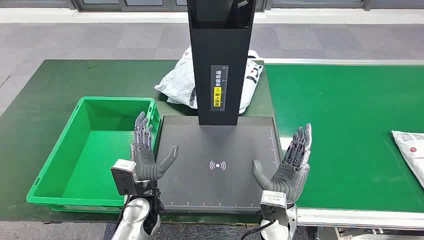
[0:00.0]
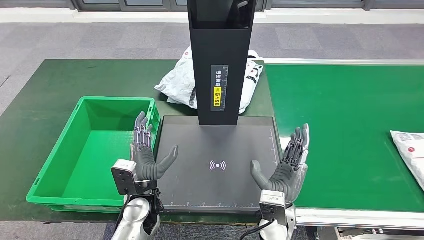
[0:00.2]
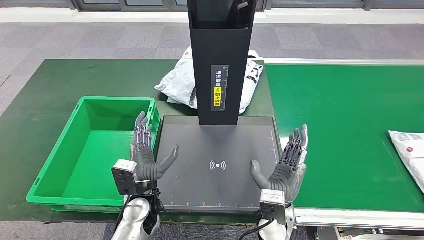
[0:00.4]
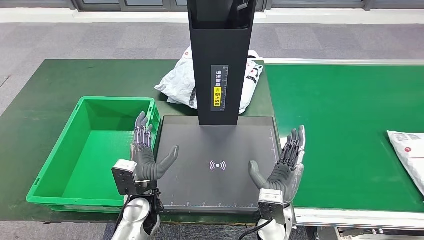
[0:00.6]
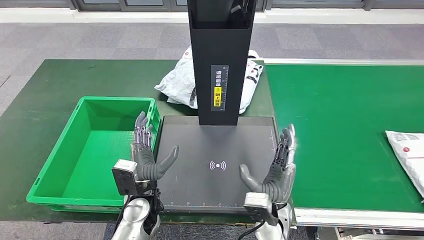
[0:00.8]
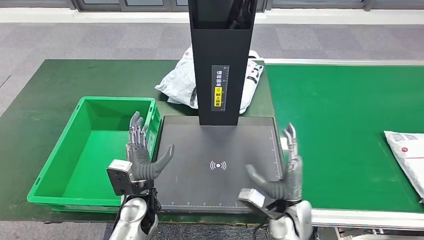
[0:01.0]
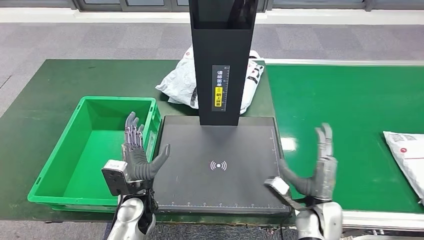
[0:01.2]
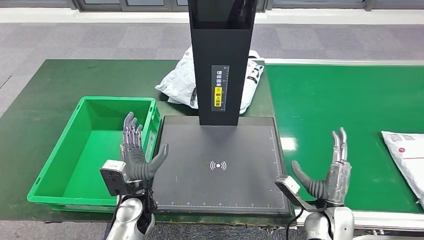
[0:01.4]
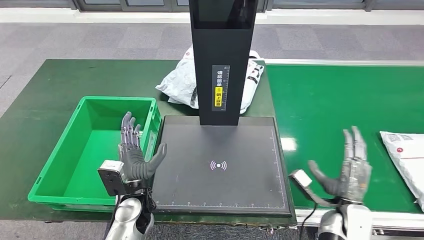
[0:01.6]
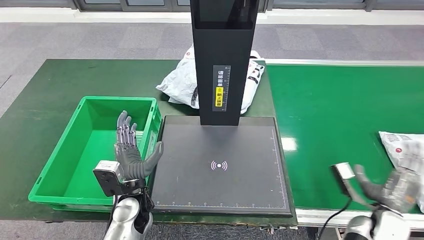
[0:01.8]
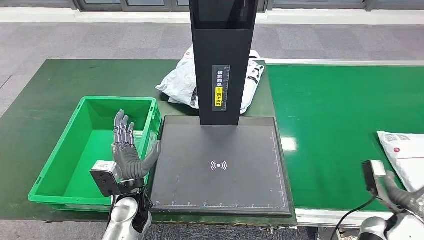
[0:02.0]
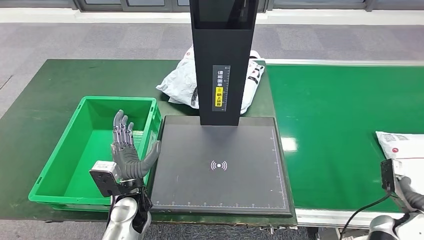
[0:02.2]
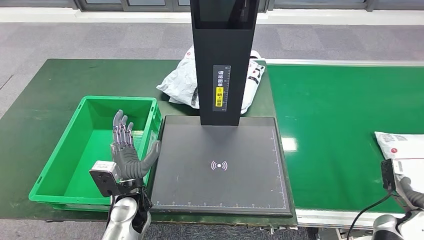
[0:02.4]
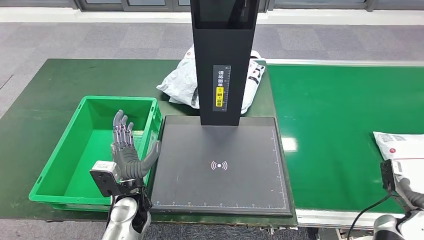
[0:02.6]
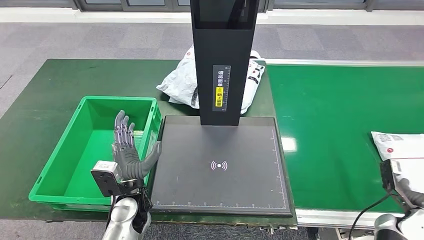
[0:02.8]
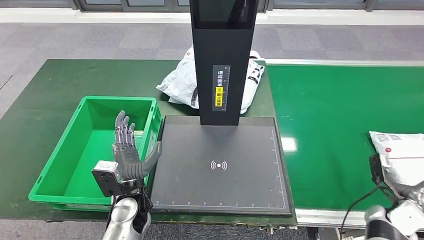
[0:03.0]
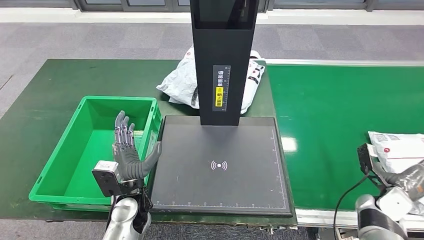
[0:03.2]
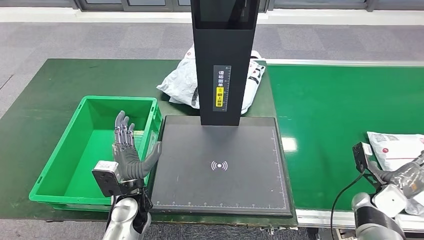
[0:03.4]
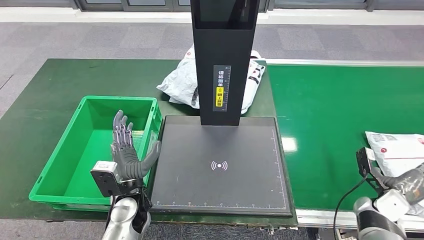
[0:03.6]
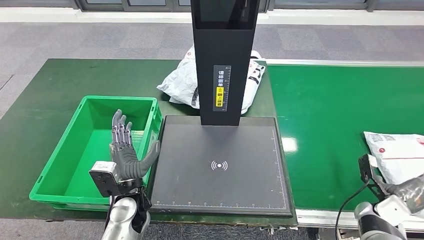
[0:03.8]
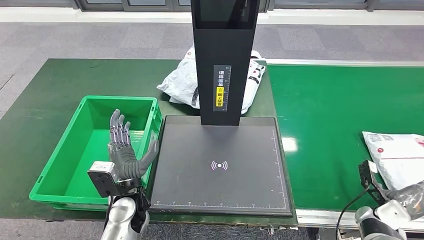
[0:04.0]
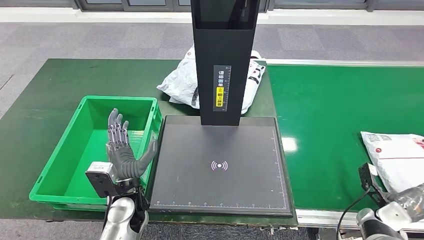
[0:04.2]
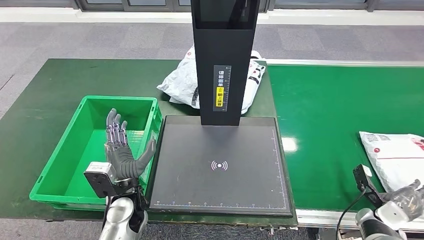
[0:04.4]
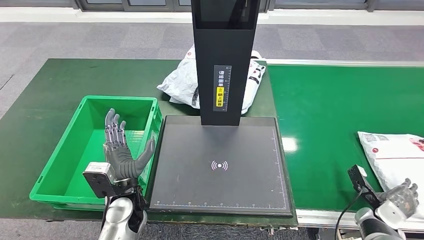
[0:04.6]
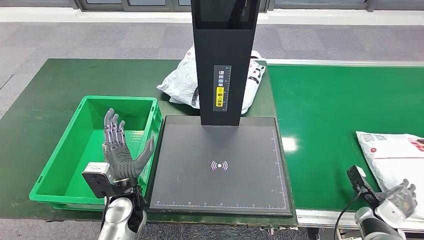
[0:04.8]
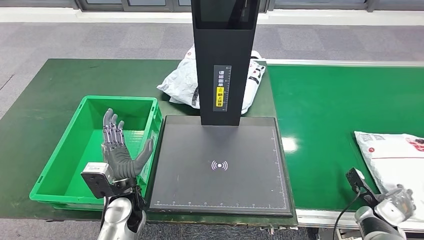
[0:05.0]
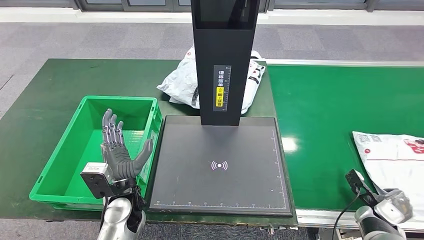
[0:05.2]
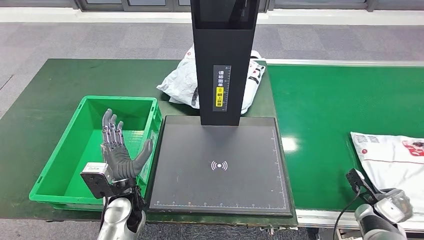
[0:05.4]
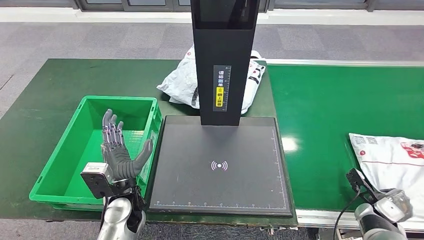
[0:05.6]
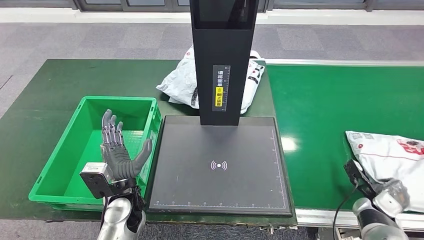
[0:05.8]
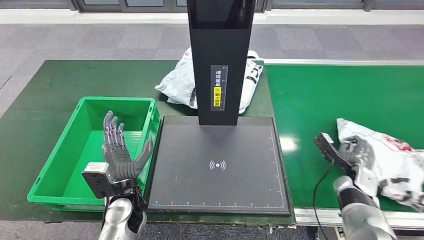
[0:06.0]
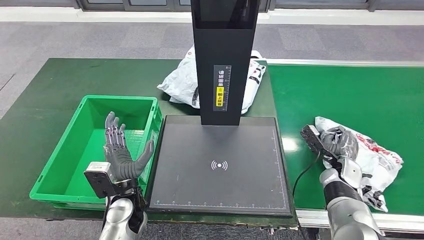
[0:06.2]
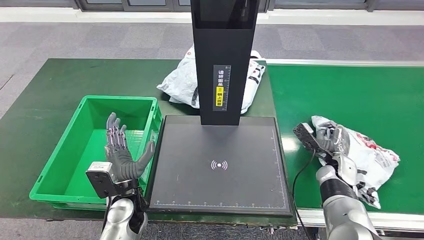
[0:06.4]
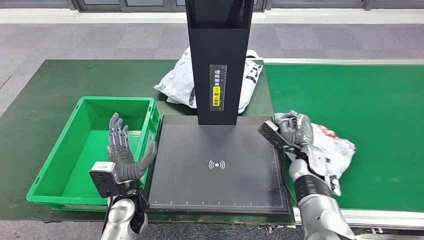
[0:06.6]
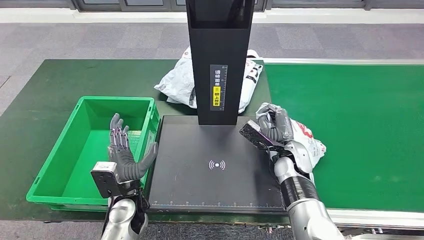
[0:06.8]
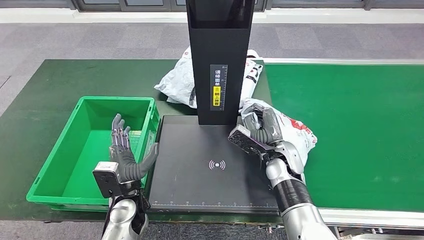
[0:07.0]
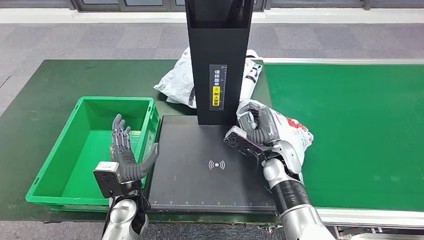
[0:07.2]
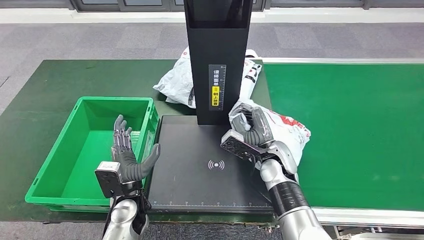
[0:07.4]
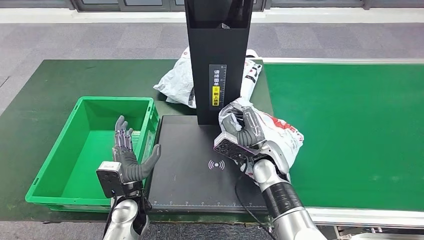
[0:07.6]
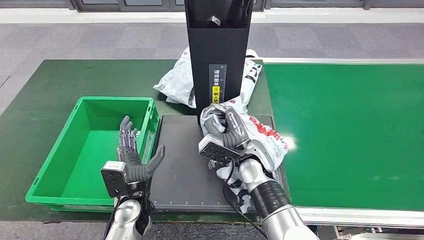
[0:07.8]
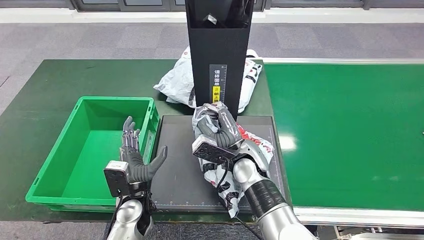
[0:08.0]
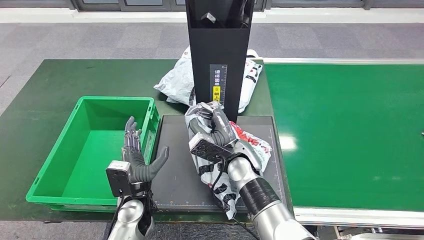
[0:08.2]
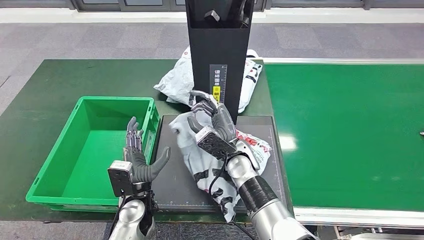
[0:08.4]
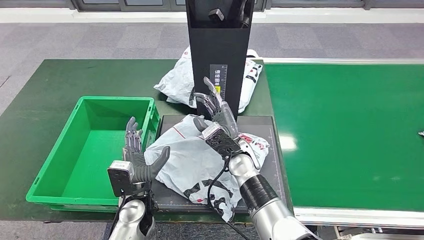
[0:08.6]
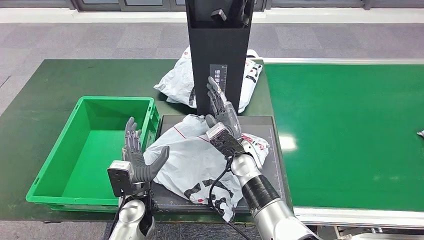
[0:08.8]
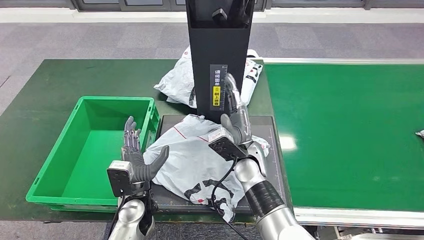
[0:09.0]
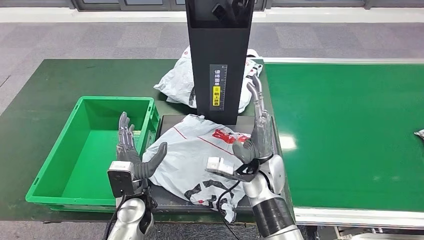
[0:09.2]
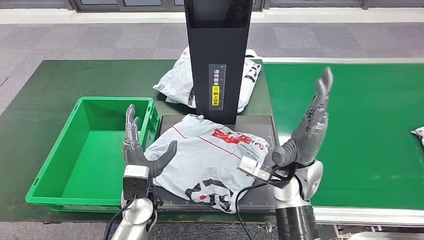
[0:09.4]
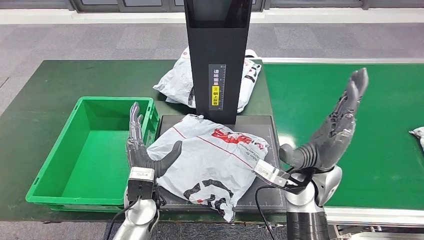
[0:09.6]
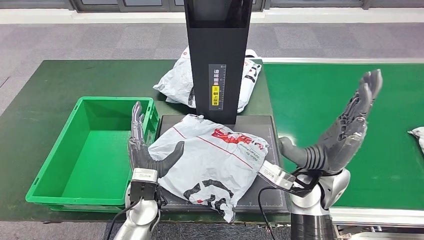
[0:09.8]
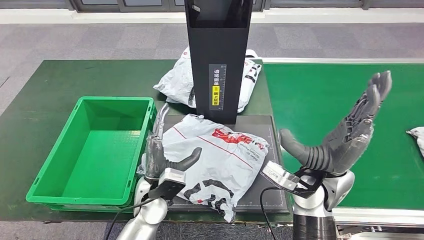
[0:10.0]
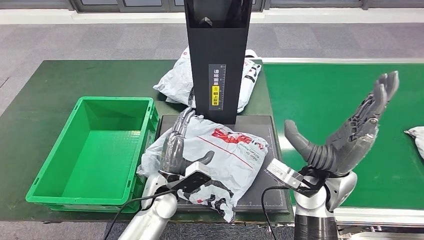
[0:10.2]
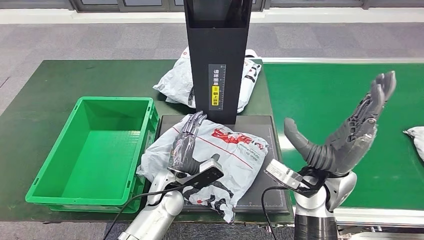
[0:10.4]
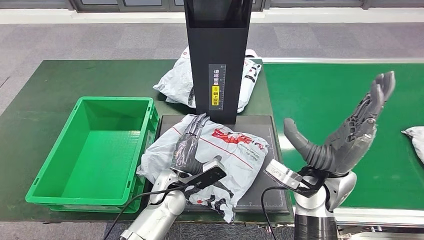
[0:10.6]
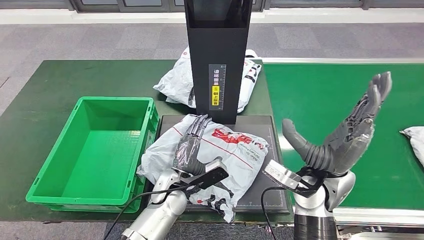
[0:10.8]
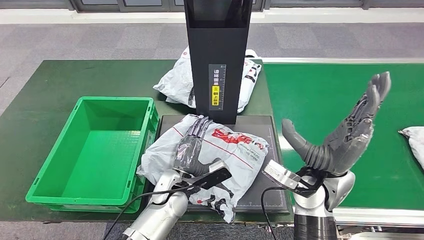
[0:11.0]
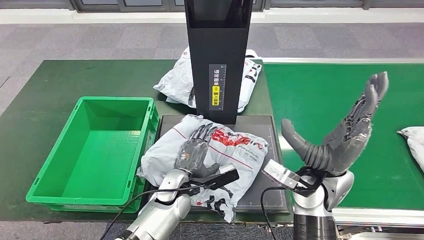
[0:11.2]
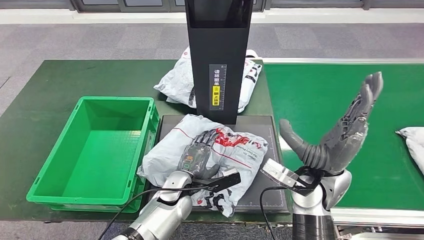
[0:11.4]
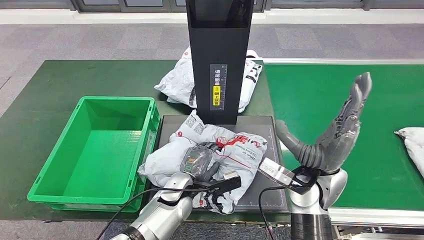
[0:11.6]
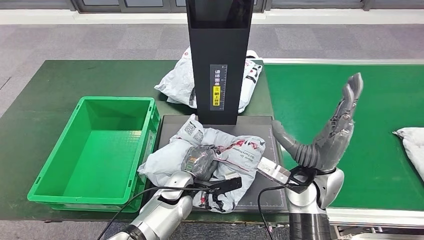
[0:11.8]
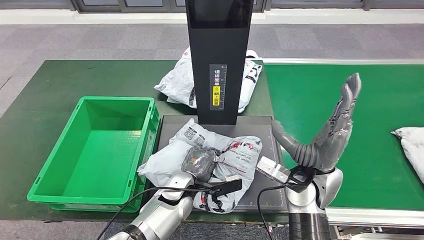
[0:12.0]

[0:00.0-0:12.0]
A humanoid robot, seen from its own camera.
Step, 0:00.0 to 0:06.6: Take the parcel off the conveyor belt.
Step, 0:07.0 to 0:09.4: Place the parcel onto the inbound machine.
0:01.6 to 0:03.0: The right hand travels to the right by roughly 15 cm.
0:04.4 to 0:06.0: The right hand moves forward and to the left, some 10 cm.
0:07.6 to 0:09.0: The right hand moves to the left, approximately 5 cm.

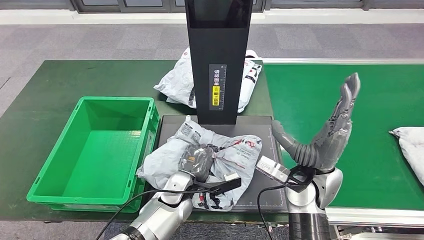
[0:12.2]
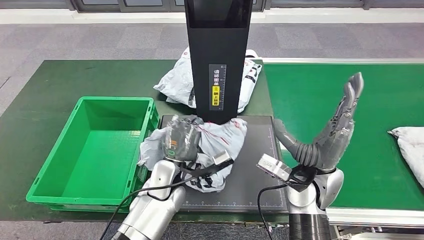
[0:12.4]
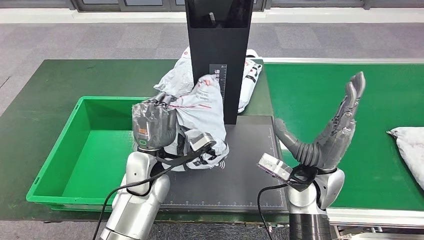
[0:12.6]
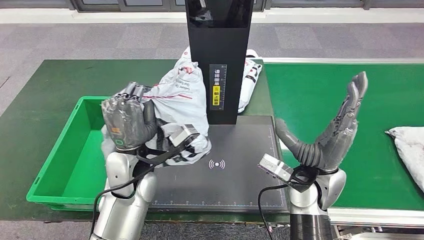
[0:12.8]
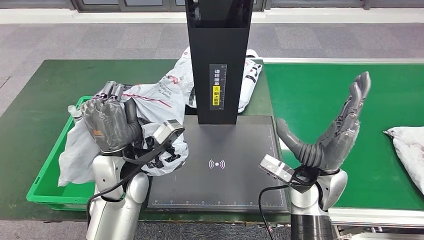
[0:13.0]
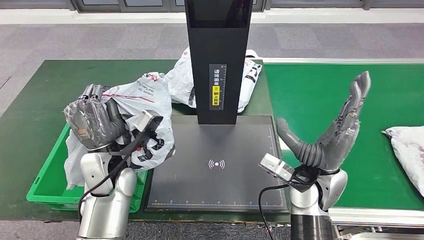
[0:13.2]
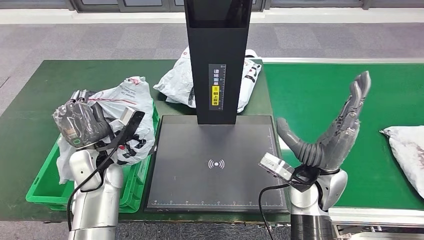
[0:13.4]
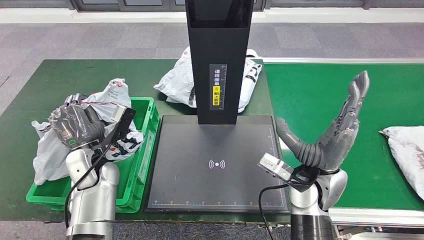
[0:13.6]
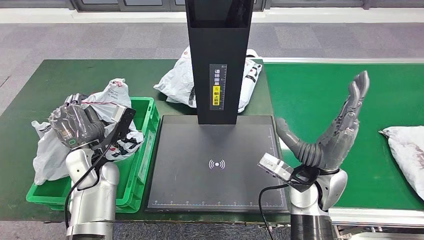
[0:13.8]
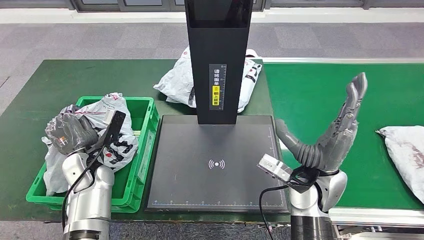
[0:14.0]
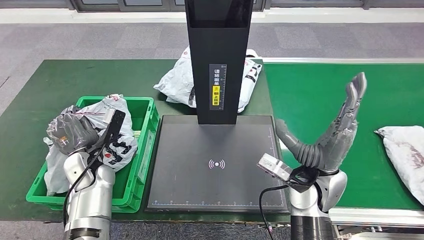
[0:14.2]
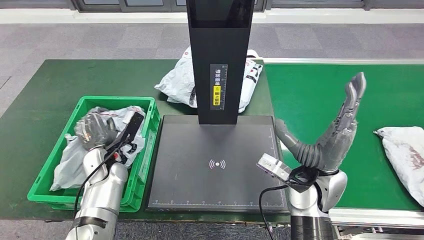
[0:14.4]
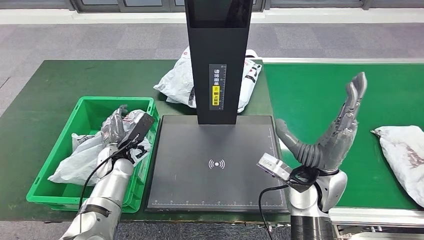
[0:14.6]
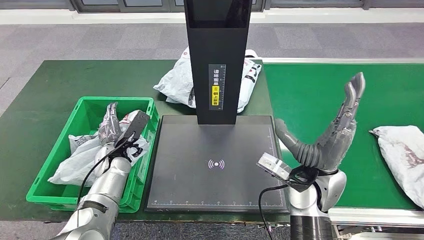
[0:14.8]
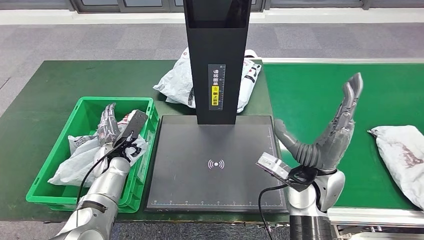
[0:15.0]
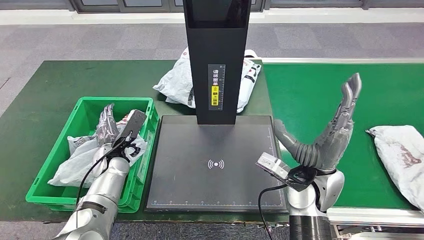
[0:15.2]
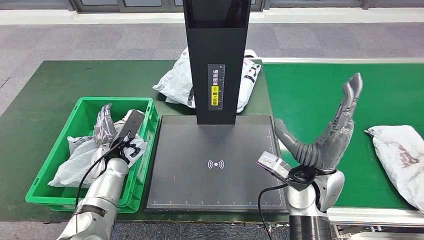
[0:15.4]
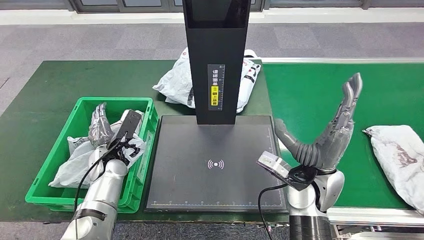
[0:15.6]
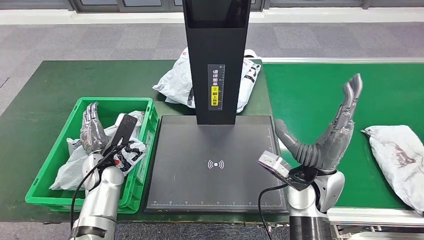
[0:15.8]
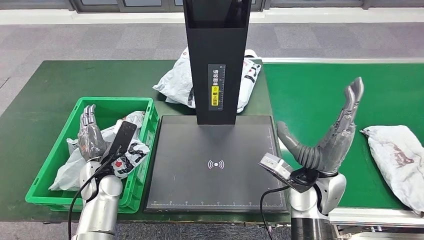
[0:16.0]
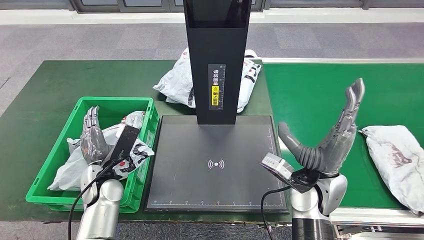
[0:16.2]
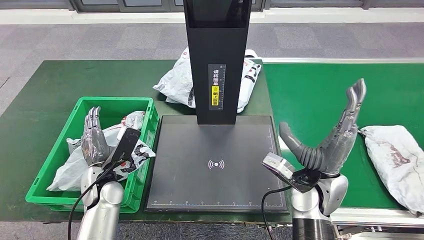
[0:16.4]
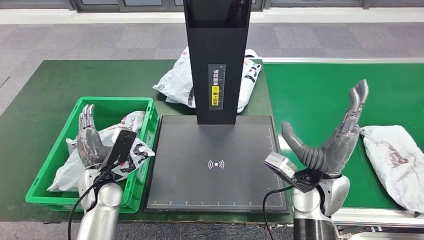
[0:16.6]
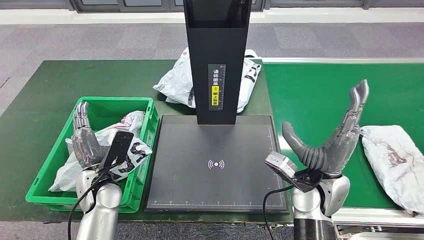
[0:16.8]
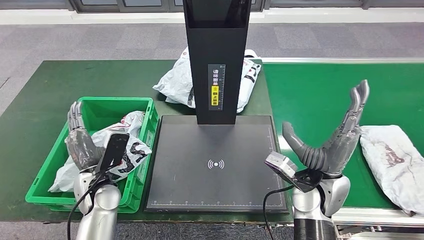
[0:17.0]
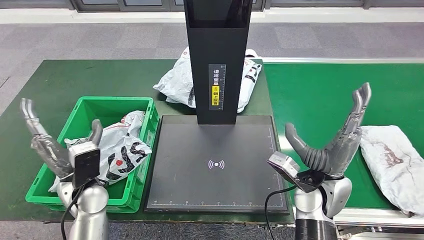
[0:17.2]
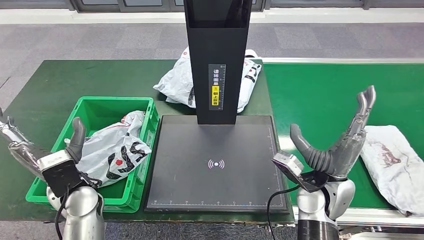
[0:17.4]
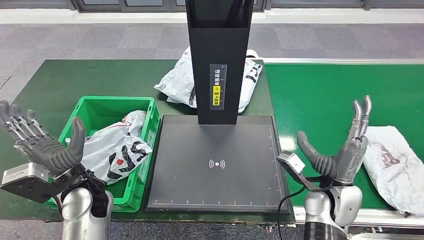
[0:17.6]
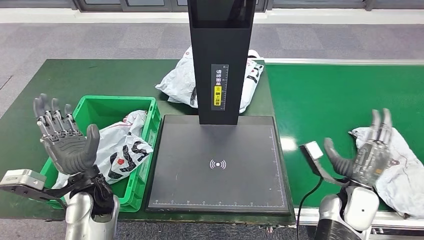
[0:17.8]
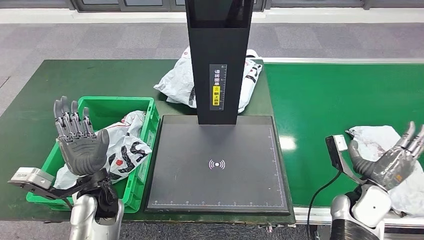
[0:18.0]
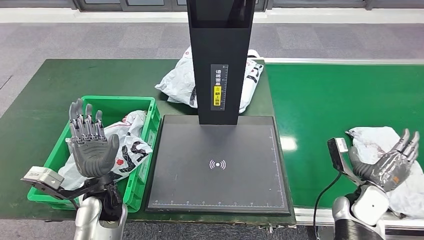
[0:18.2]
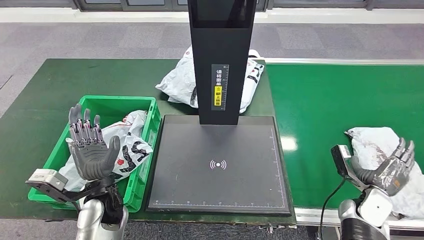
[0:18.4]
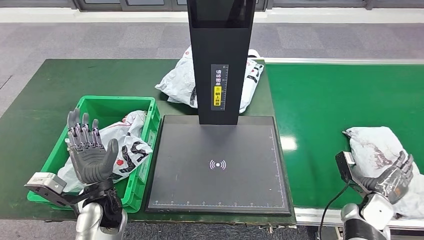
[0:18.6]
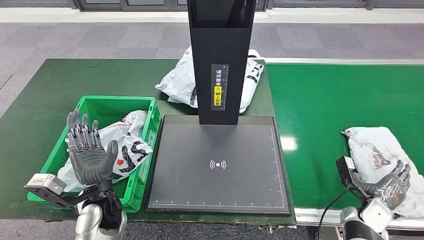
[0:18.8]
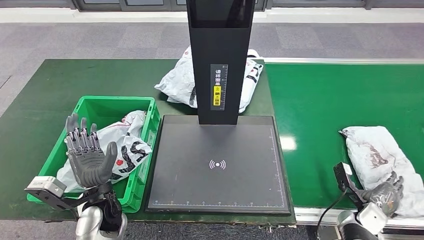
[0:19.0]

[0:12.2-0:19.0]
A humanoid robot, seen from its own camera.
Step, 0:13.2 to 0:17.4: Put the parcel inside the courier box.
0:13.6 to 0:15.0: The left hand is displaced downward by approximately 10 cm.
0:15.0 to 0:16.2: The left hand travels backward by about 5 cm.
0:17.6 to 0:19.0: The right hand goes about 20 cm to the right and downward. Meanwhile the left hand heads downward, covering approximately 5 cm.
